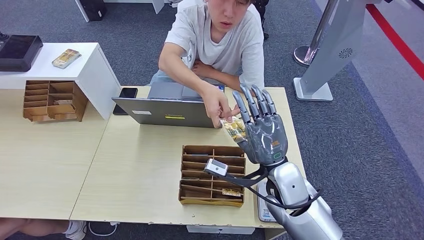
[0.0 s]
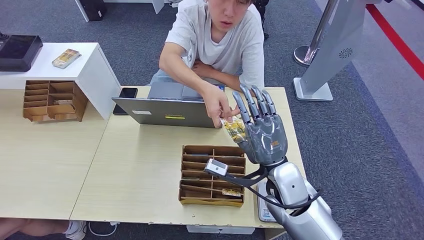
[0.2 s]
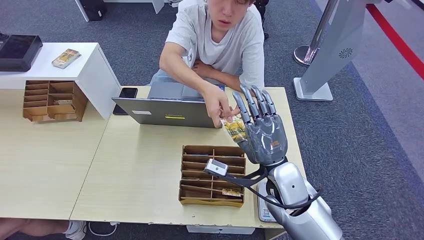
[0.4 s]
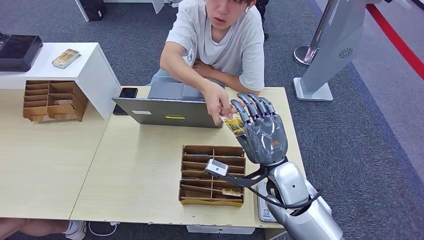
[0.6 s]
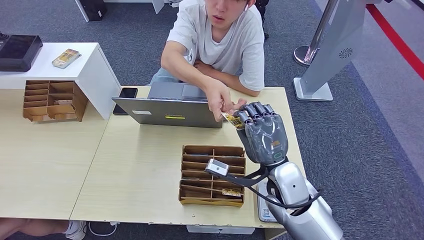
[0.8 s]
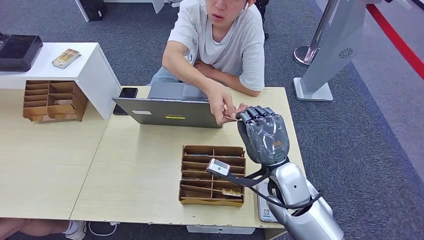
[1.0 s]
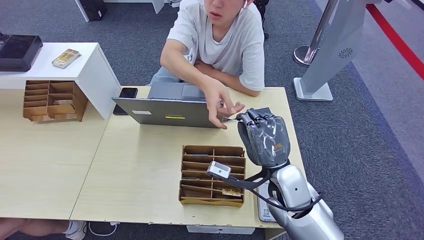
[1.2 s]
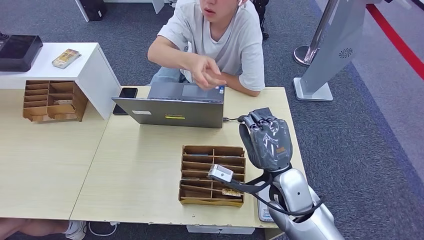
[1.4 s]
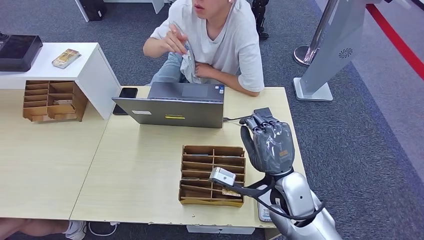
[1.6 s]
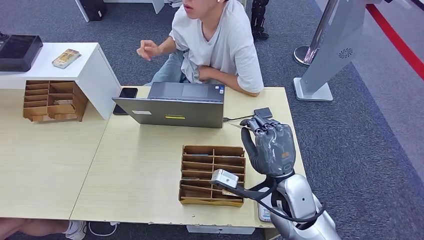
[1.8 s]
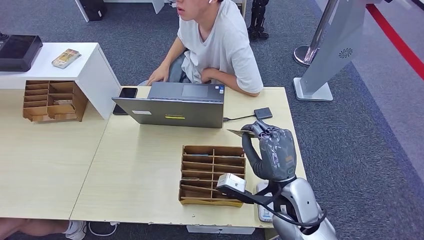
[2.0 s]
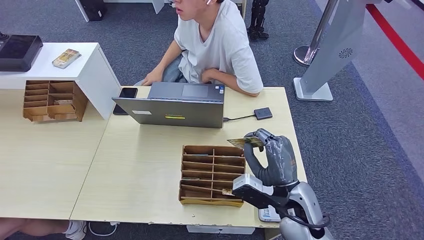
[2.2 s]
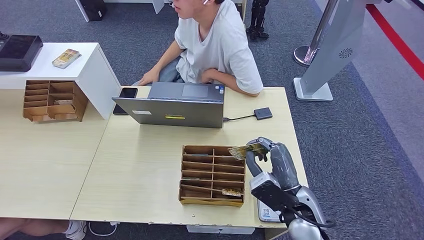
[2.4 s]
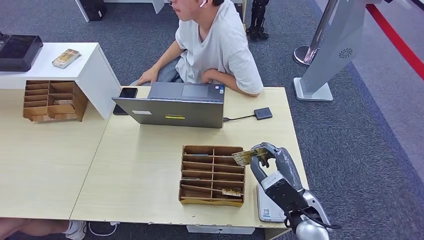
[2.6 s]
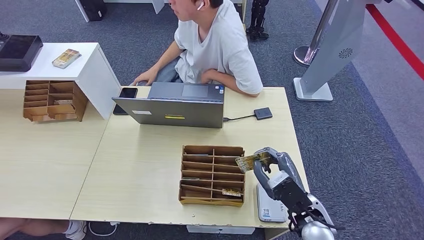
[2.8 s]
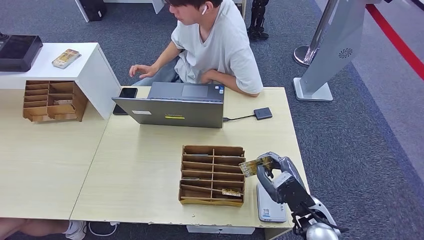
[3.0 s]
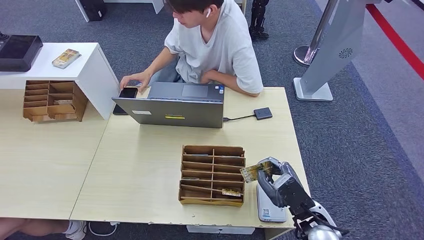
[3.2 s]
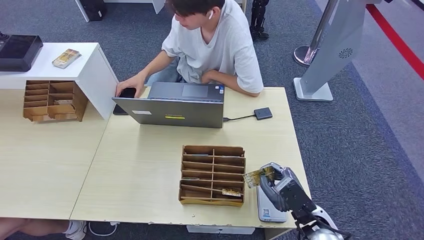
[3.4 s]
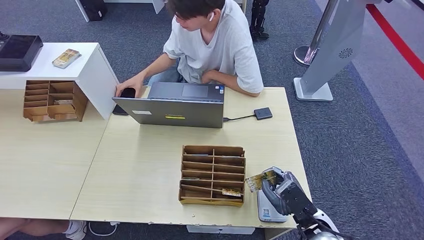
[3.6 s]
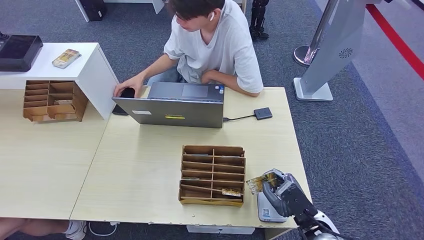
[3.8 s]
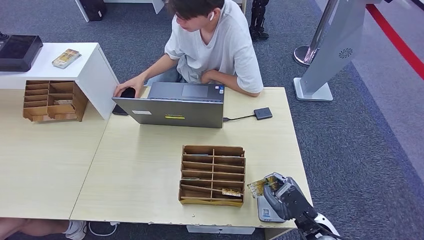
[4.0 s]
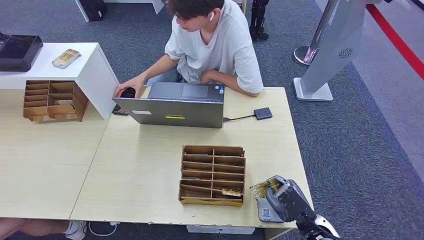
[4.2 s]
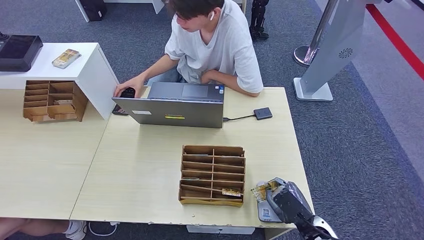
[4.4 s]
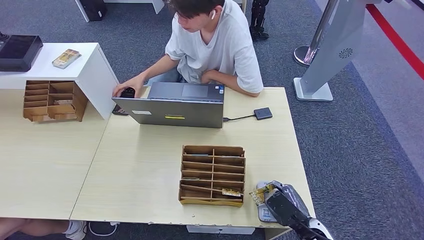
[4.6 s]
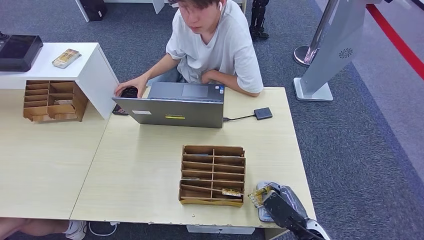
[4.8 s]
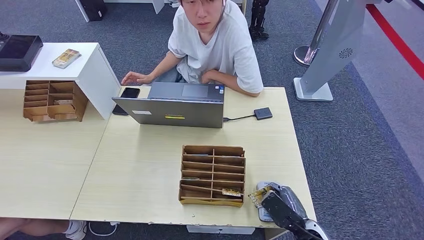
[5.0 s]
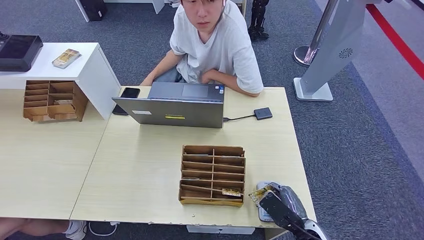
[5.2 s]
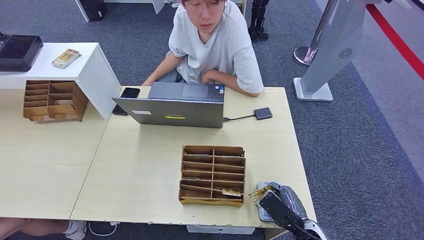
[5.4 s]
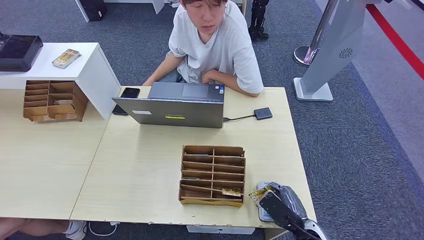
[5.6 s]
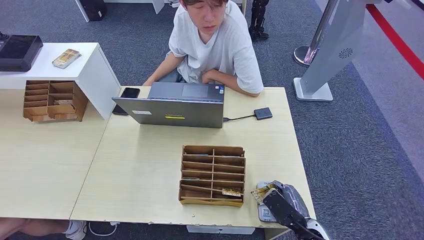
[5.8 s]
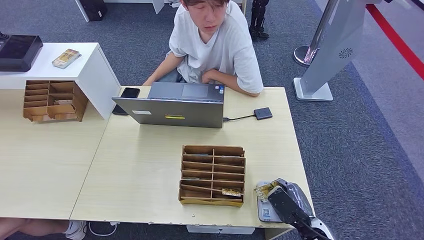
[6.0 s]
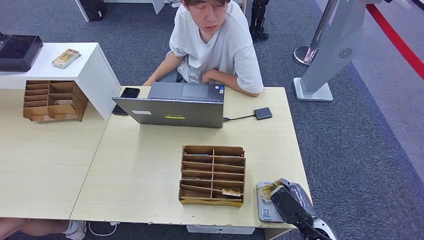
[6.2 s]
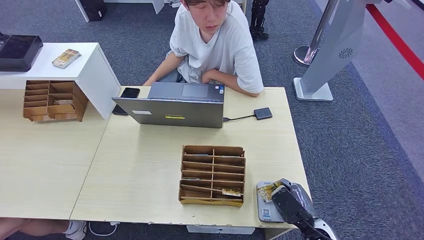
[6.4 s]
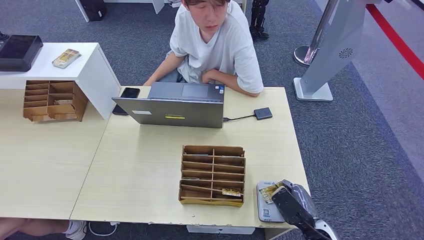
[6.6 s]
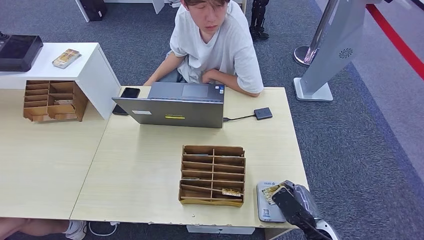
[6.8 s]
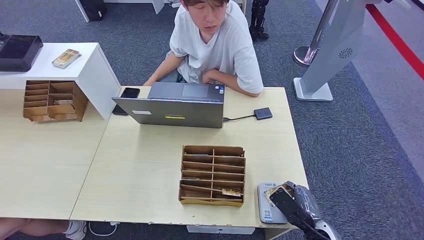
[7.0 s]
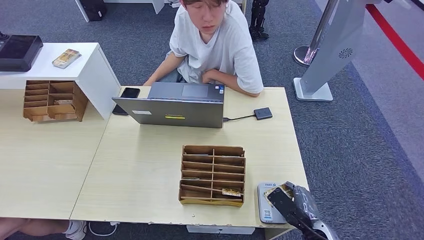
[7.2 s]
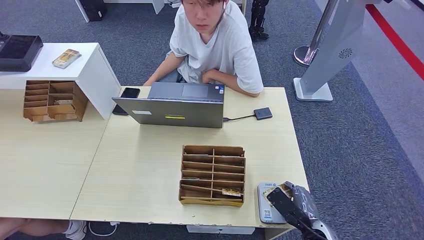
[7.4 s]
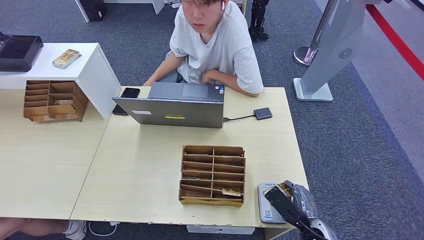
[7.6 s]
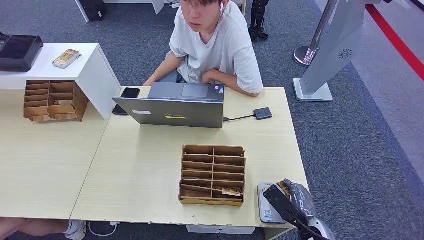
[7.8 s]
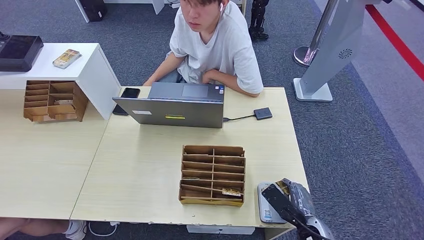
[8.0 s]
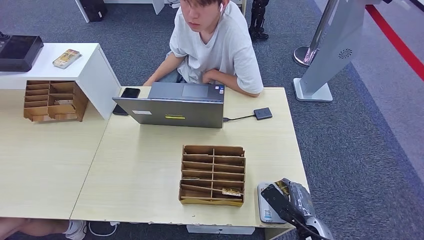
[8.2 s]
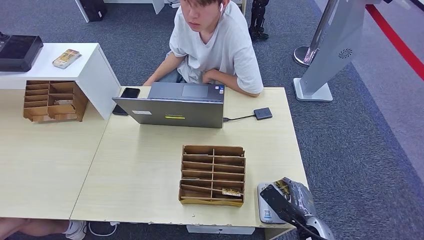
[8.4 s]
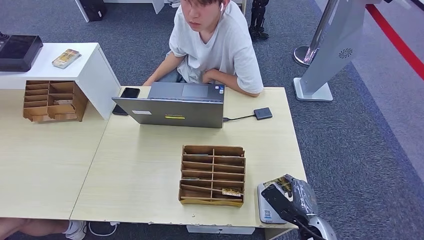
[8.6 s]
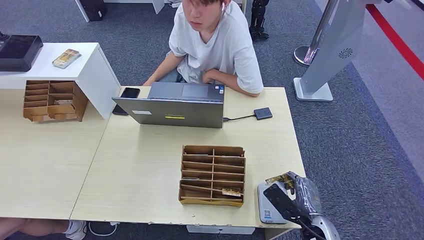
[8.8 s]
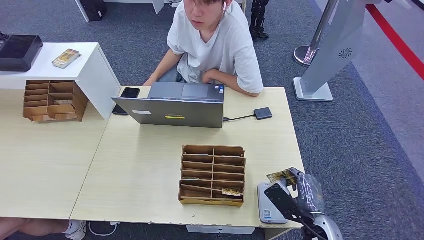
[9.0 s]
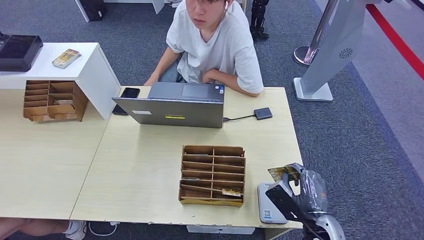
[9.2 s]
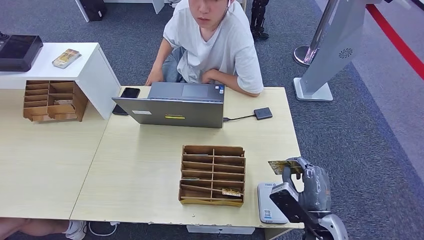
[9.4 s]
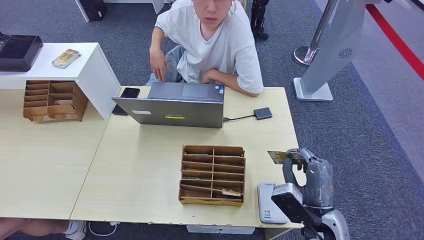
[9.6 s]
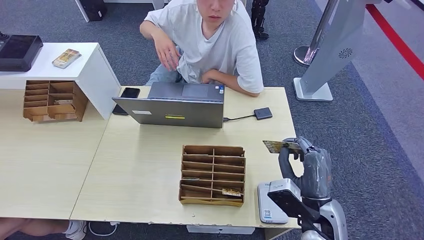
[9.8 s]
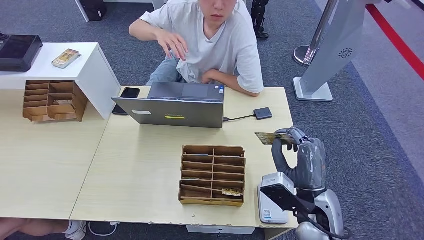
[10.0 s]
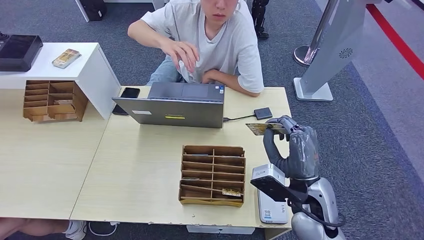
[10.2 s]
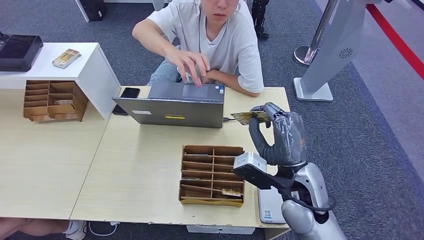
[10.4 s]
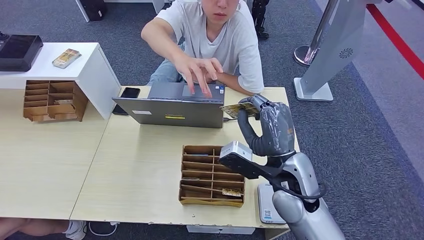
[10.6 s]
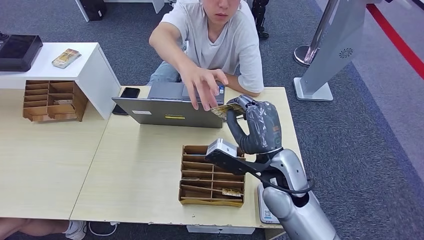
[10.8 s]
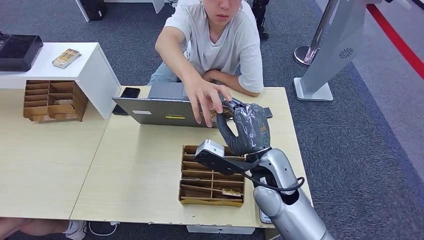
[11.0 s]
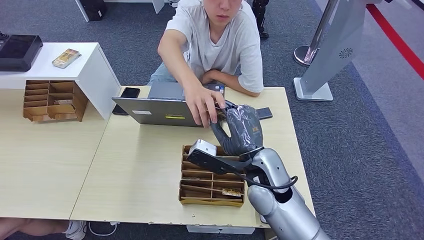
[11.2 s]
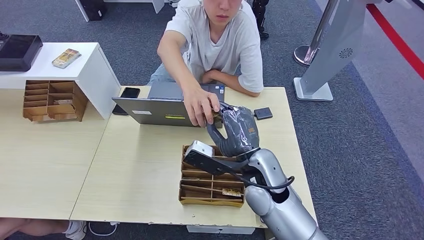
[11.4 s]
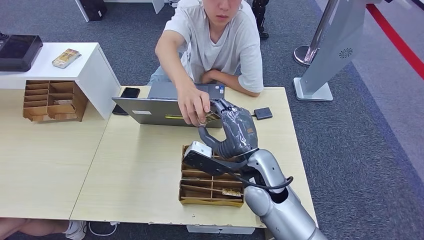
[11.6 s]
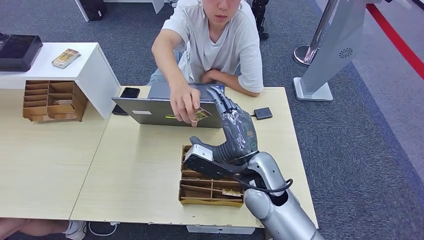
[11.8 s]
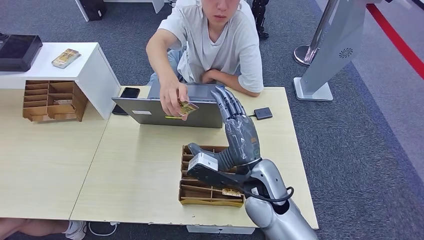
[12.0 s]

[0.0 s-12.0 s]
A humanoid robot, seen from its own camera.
Step, 1.6 to 7.4 s: Place the ID card on the card reader.
0.0 to 1.6 s: The hands make only small movements.
1.6 to 3.0 s: The right hand travels to the right and downward by roughly 10 cm.
3.0 to 4.4 s: The right hand shifts roughly 5 cm downward.
4.4 to 6.0 s: The hands move only a little.
6.0 to 7.6 s: The hands move only a little.
7.6 to 9.0 s: The hands stay close to where they were, moving slightly.
9.0 to 10.4 s: The right hand travels upward, to the left and forward by about 20 cm.
10.4 to 12.0 s: The right hand goes about 10 cm to the left.

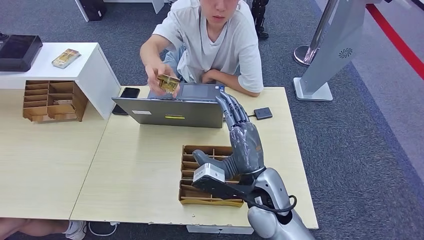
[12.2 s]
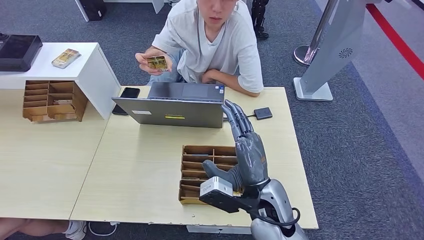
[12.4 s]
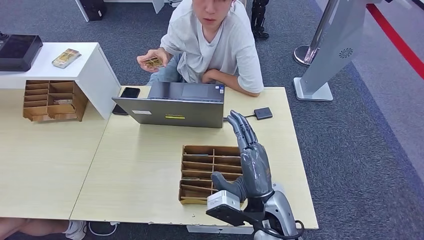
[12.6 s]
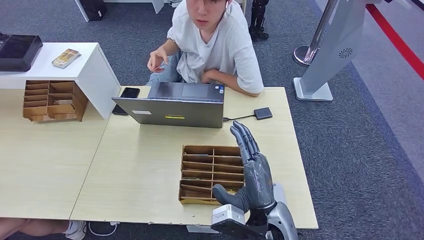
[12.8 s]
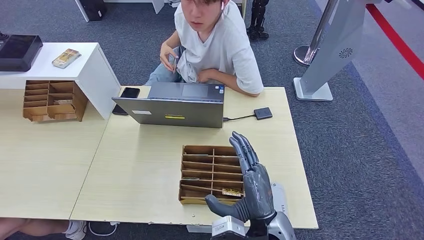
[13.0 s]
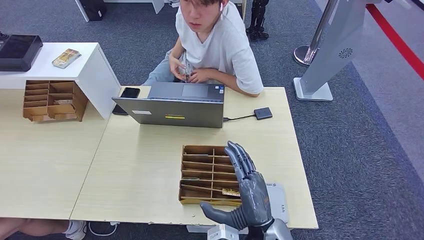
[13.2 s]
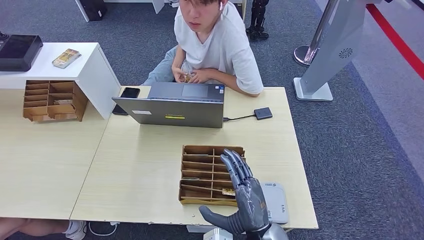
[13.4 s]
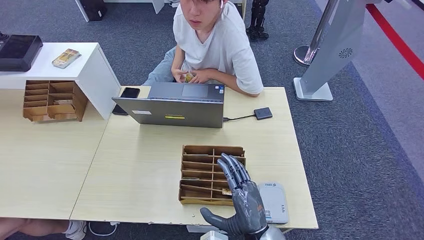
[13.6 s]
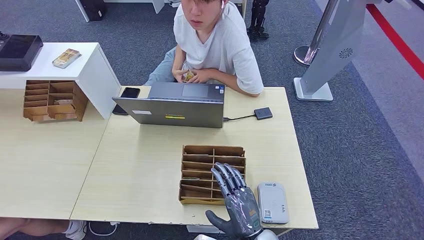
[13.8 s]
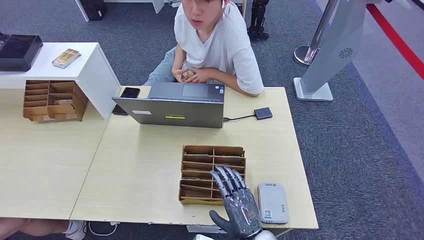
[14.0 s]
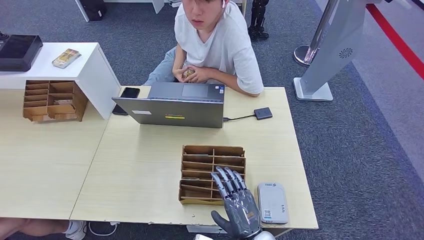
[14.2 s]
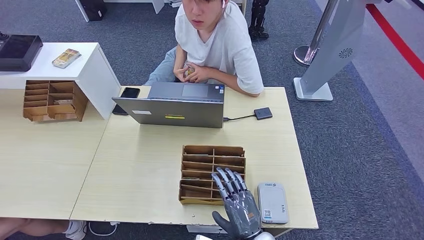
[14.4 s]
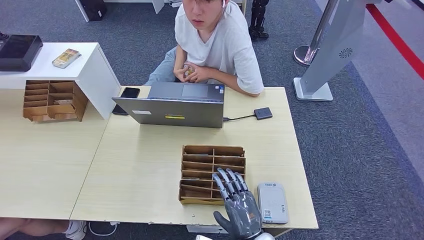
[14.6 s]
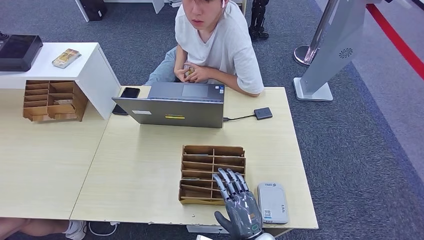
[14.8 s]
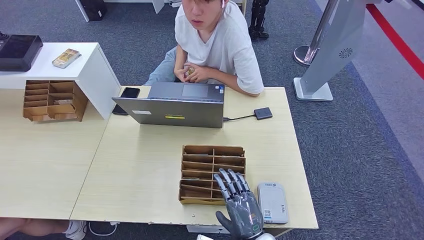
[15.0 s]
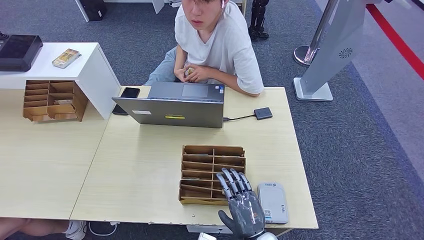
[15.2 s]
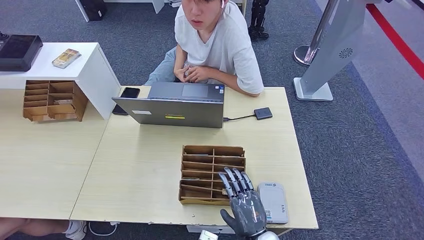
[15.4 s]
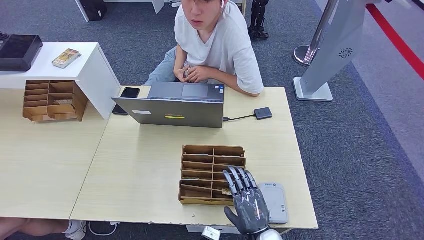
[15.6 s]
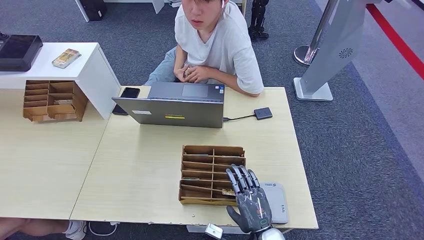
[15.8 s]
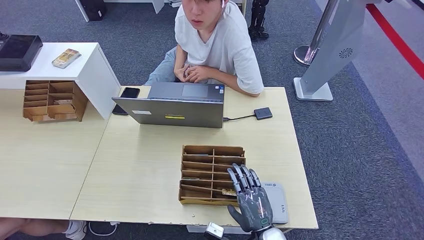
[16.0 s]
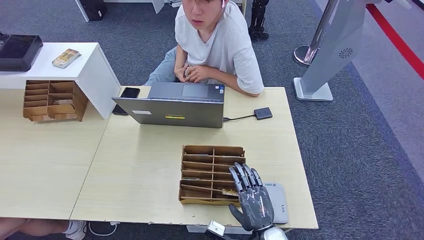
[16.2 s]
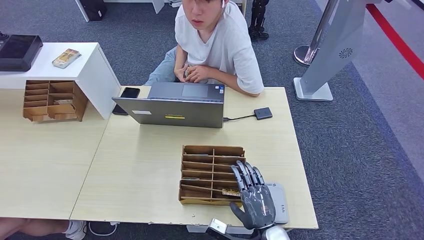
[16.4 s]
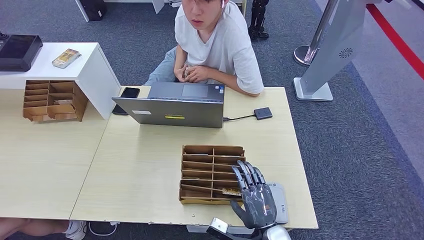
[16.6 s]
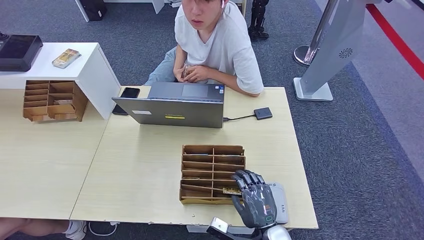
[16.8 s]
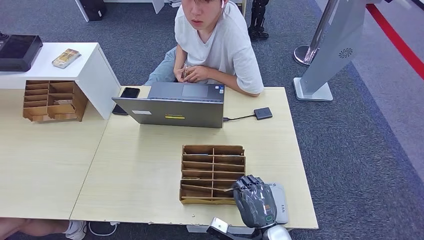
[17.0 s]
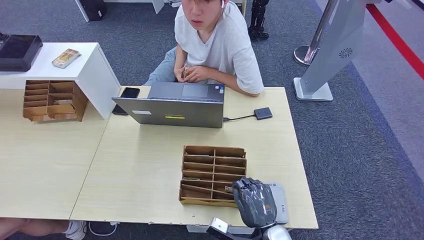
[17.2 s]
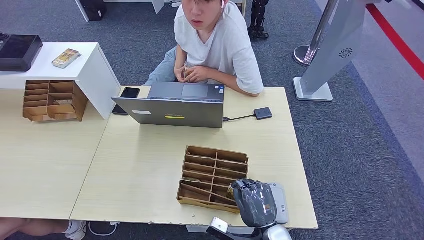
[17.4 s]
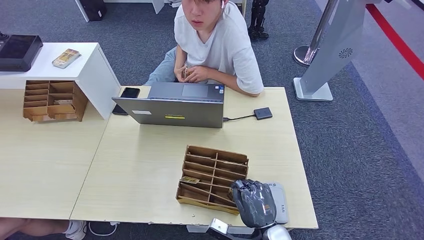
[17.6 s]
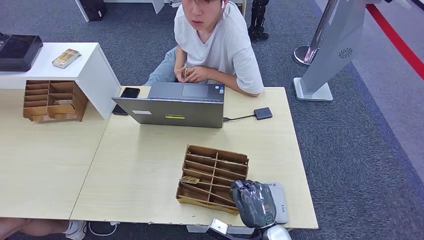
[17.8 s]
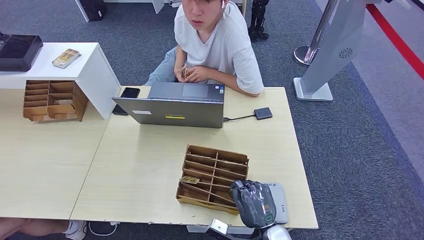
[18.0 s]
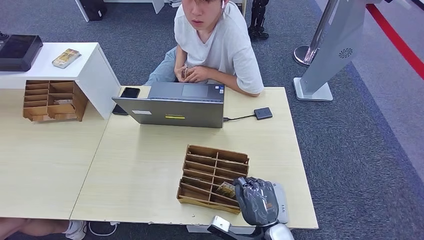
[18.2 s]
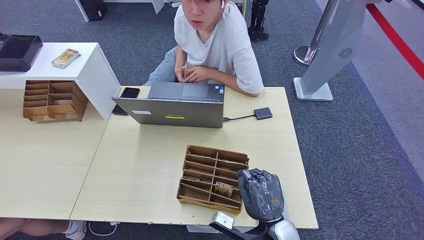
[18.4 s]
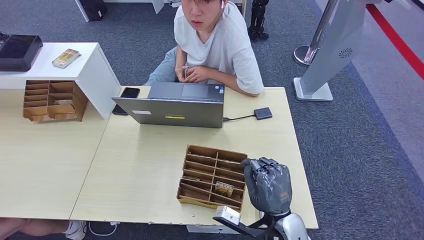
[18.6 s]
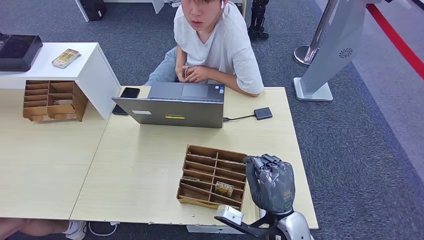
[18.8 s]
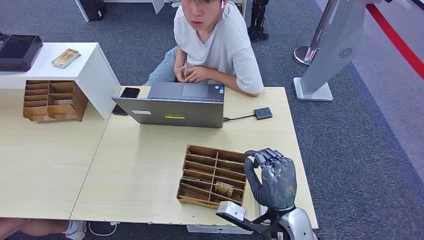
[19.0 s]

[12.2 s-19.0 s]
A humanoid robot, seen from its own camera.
12.2 to 13.6 s: The right hand shifts about 15 cm downward and backward.
13.6 to 15.0 s: The right hand shifts approximately 5 cm downward.
15.0 to 16.2 s: There are only small adjustments of the hands.
16.2 to 17.6 s: The two hands keep their place.
17.6 to 19.0 s: The right hand heads upward, covering roughly 10 cm.
